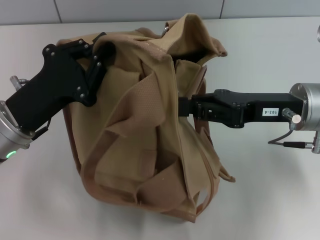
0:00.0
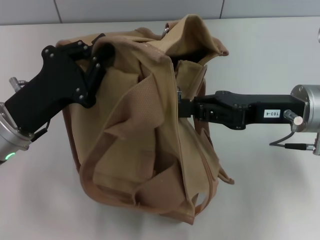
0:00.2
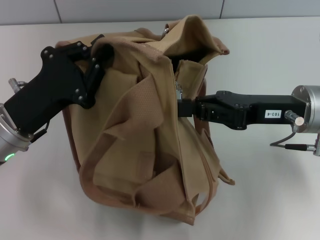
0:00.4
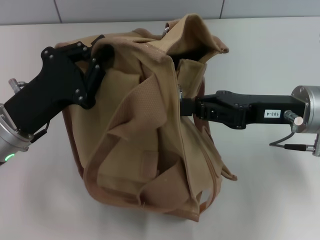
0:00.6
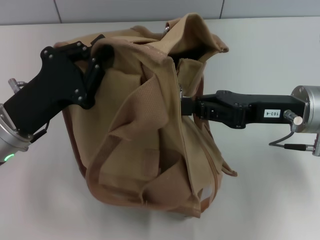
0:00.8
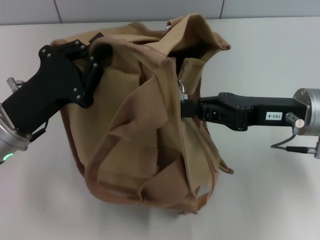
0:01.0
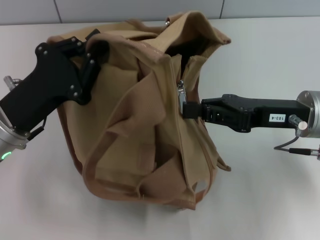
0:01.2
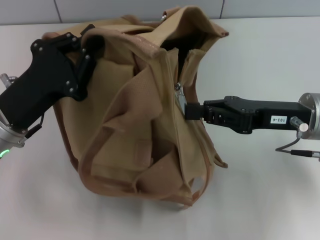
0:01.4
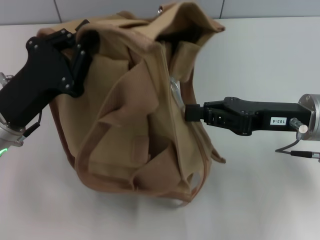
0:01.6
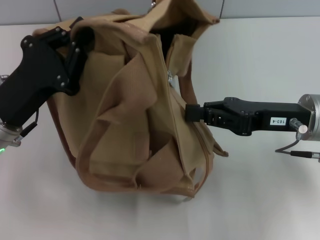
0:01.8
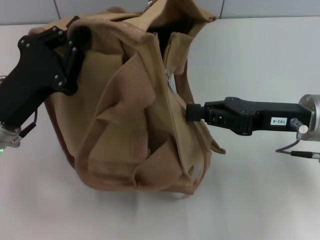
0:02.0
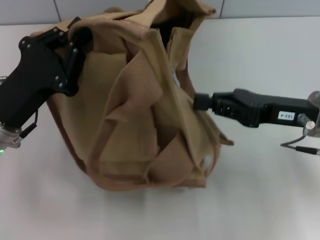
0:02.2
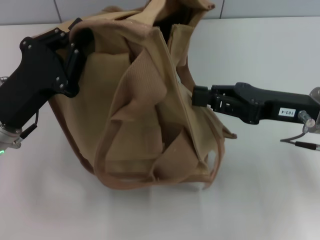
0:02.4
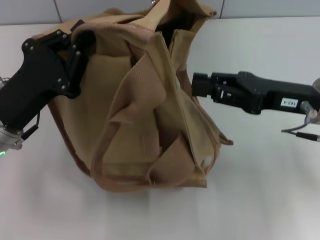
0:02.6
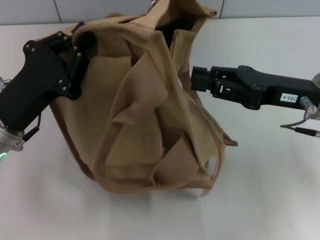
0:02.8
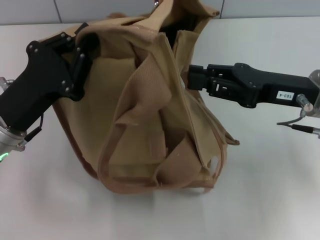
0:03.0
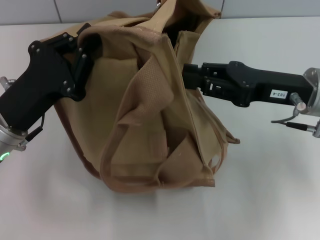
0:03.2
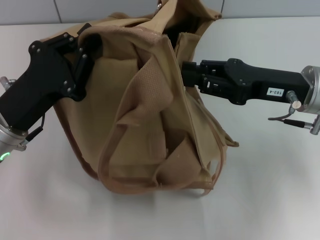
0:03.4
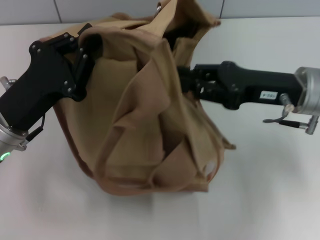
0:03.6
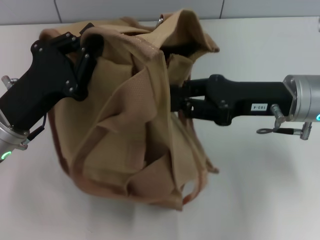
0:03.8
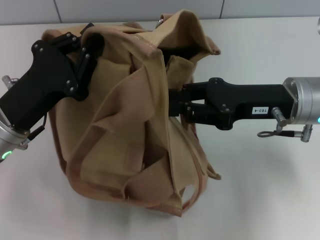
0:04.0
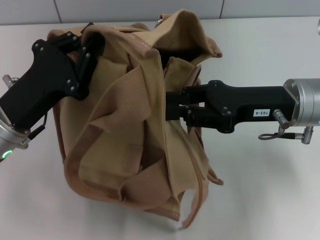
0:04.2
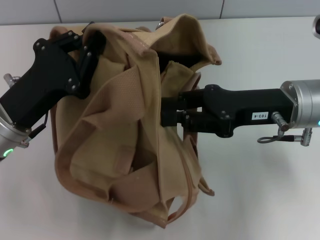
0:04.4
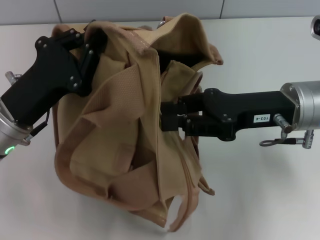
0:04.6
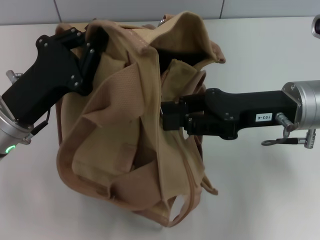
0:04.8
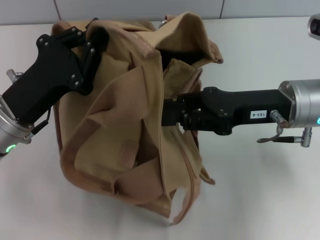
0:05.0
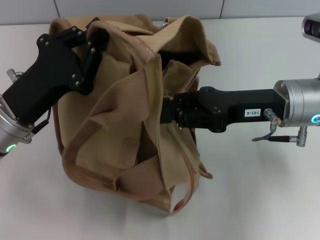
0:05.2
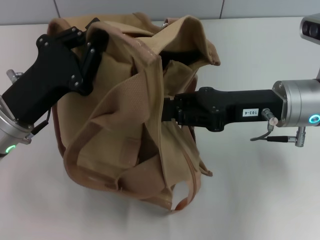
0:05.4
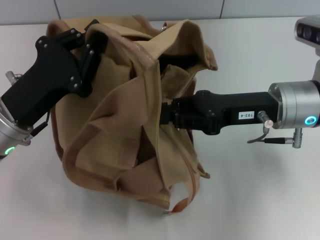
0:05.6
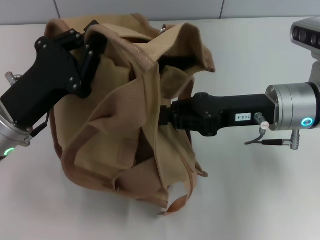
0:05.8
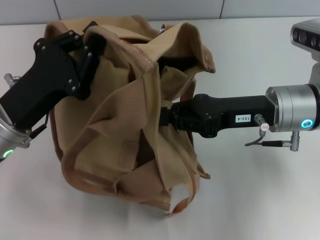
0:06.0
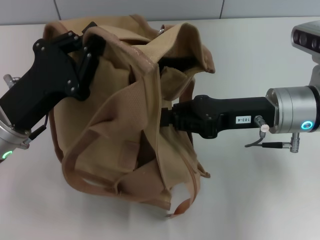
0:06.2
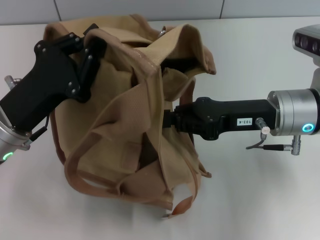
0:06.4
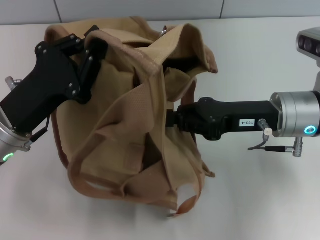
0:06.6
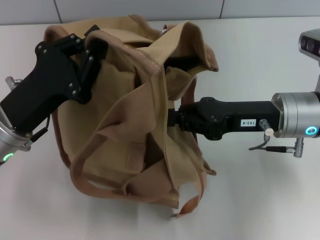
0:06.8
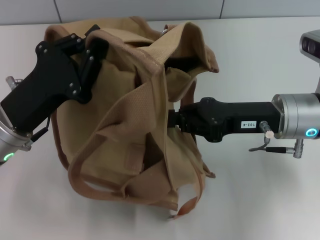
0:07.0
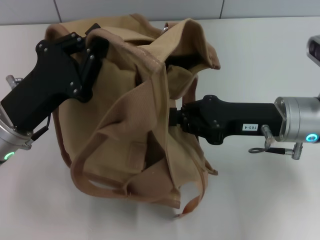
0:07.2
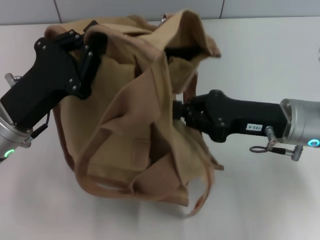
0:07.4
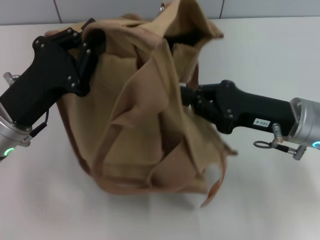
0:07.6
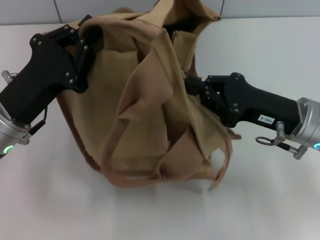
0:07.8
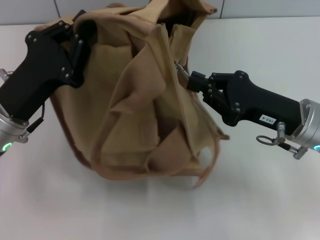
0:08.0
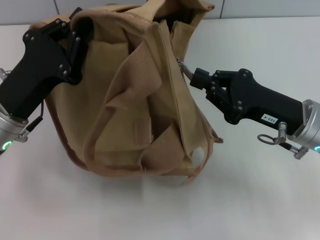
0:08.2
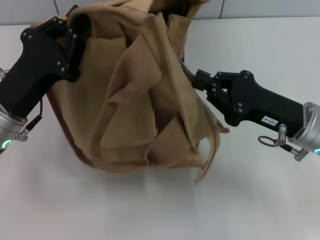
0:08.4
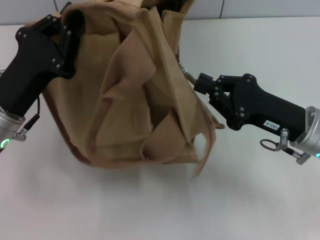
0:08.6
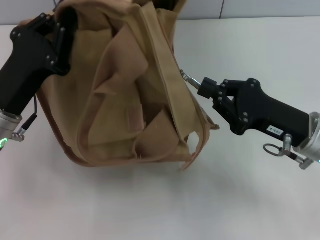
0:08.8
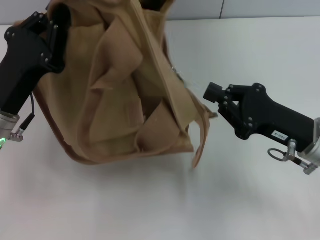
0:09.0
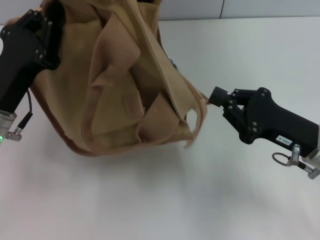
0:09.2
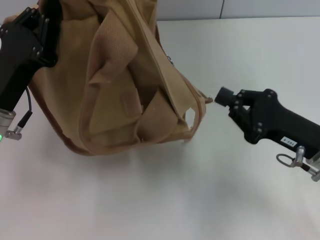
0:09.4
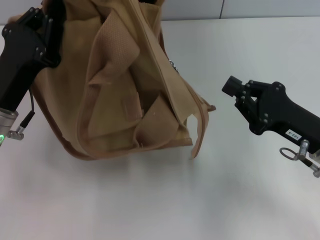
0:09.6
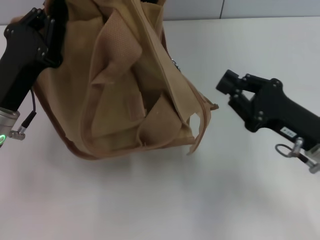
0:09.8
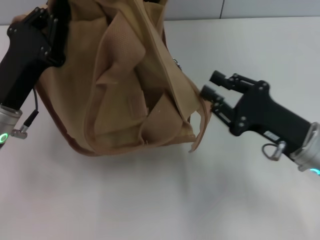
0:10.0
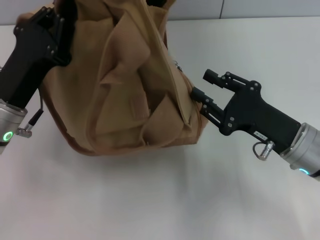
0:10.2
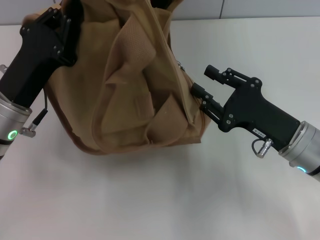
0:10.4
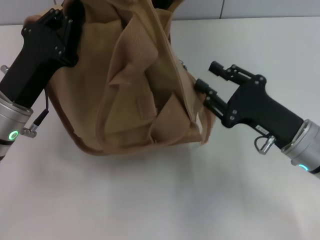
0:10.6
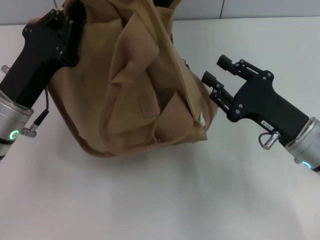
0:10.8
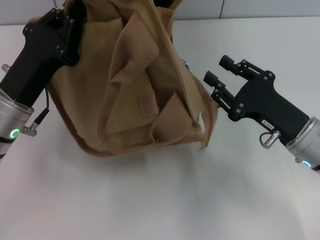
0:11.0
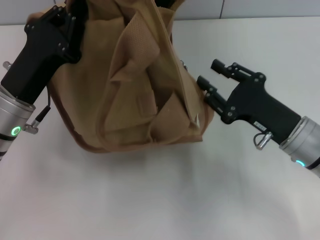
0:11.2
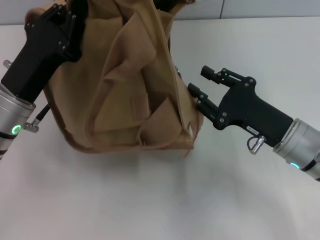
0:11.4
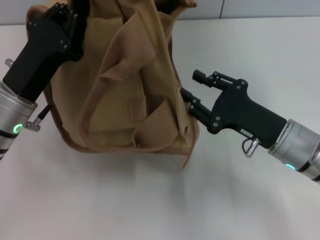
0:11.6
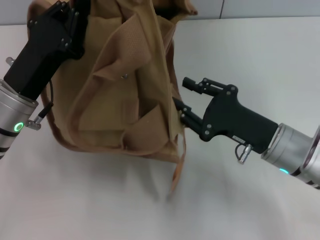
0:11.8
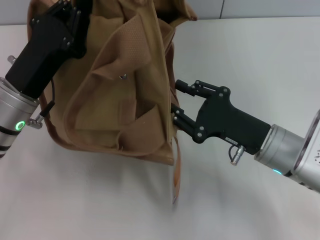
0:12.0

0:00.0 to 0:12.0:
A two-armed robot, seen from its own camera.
0:01.6 to 0:03.0: The right gripper opens its fingers.
0:04.4 to 0:06.0: There are only small adjustments of the grippers.
0:09.0 to 0:10.4: The right gripper opens up.

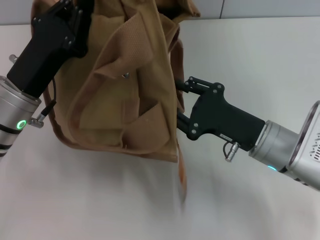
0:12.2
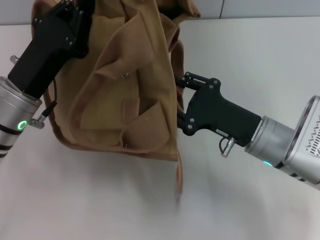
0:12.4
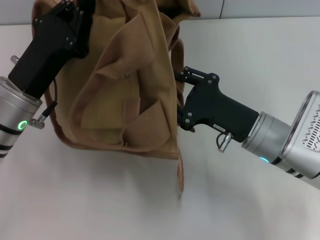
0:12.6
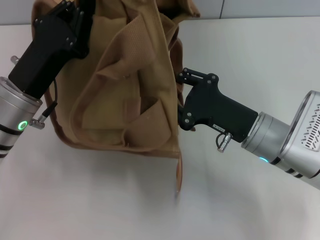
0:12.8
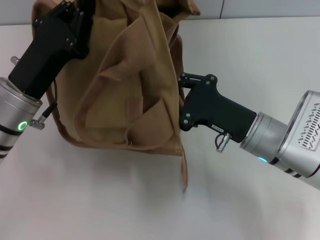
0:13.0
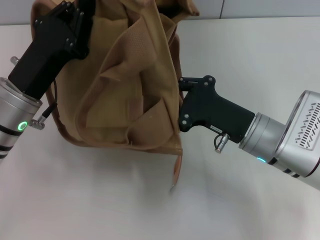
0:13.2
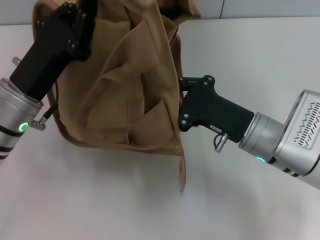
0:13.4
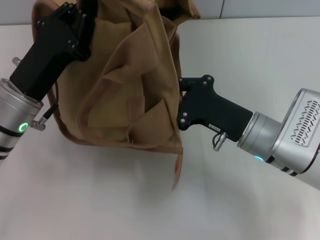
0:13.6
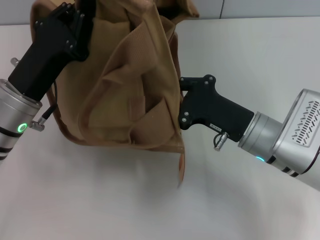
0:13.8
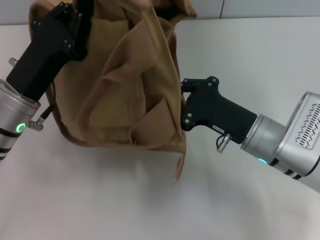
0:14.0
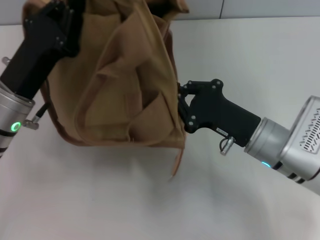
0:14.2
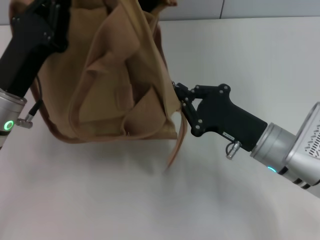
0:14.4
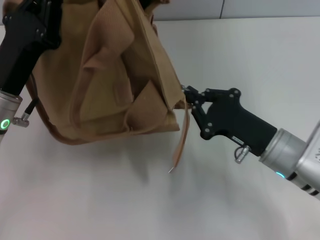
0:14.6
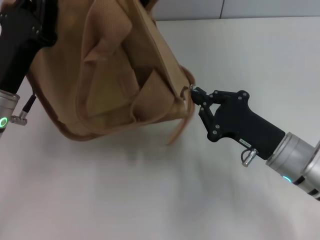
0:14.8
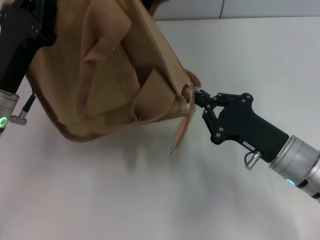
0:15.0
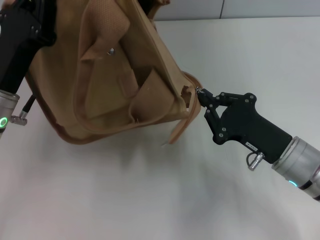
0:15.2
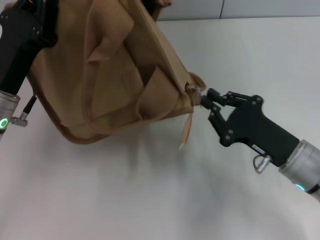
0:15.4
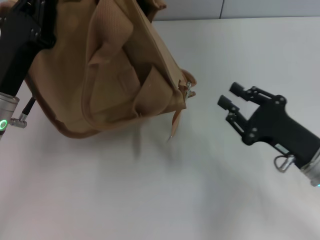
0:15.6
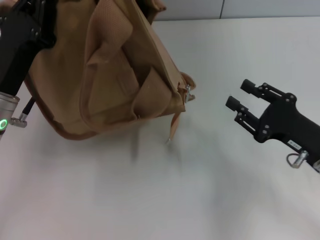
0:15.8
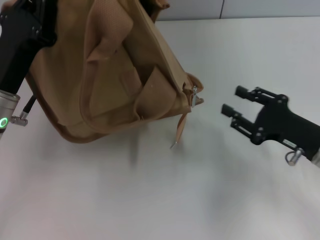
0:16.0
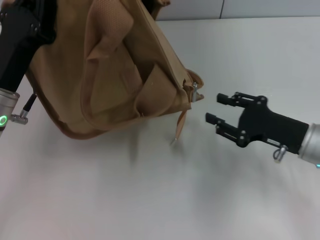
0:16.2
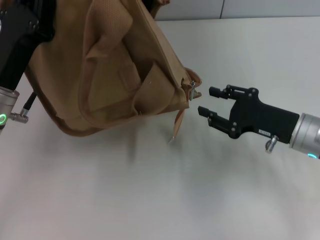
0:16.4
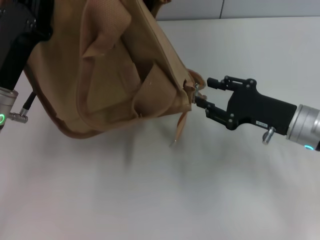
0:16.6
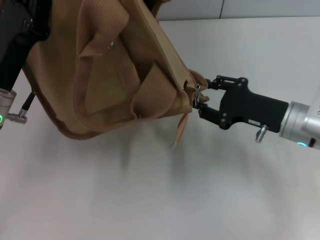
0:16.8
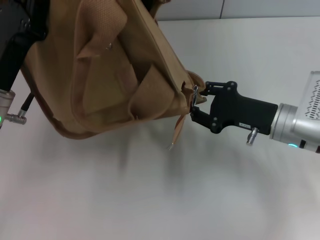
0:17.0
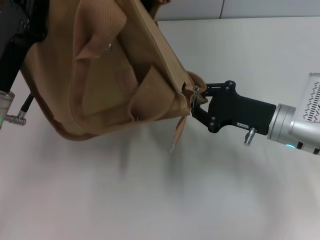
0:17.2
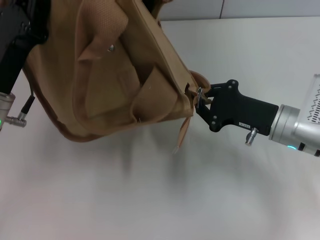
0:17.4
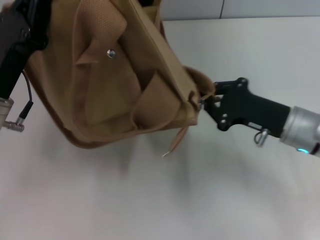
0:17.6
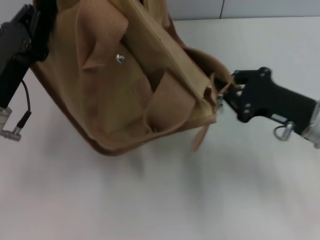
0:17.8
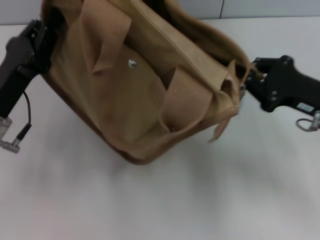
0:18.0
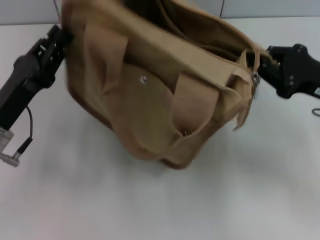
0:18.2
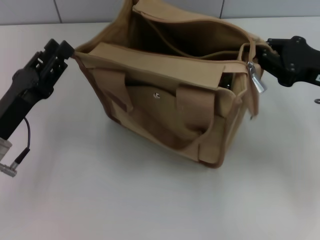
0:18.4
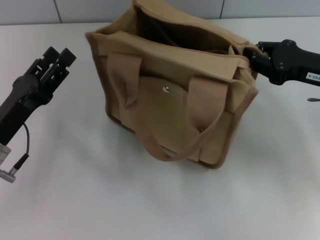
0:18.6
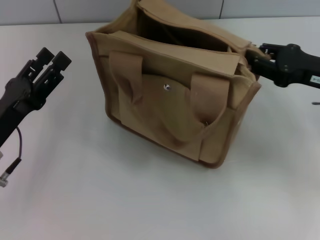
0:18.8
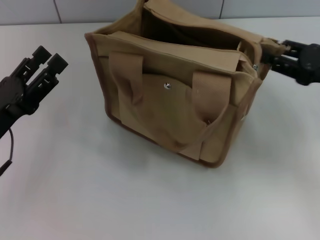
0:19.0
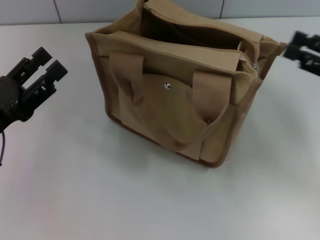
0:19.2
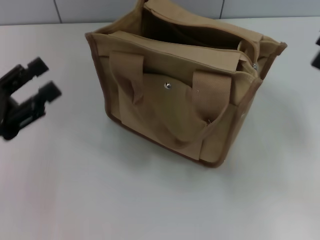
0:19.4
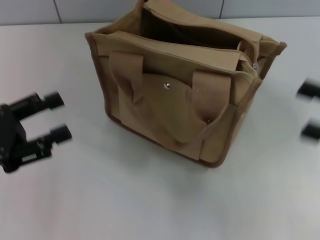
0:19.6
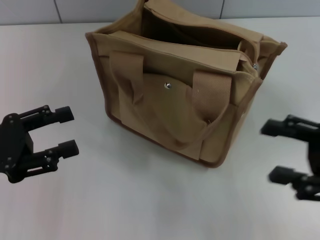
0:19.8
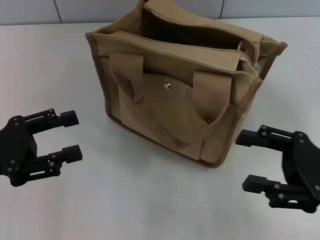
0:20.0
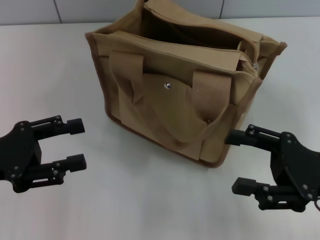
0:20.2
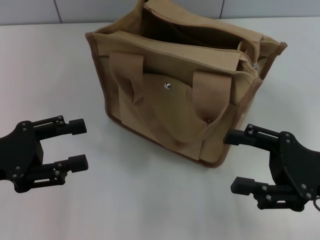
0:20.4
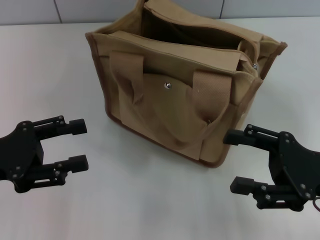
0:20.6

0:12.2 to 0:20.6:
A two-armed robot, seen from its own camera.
Step, 0:12.2 to 0:16.2: Pull open the zipper with your right hand.
Step, 0:16.4 to 0:18.4: Grab the bag with your left hand.
0:12.2 to 0:13.6: The right gripper closes up.
0:13.6 to 0:15.0: The right gripper moves roughly 5 cm.
0:15.0 to 0:16.4: The right gripper ends up some 5 cm from where it was, and opens its fingers.
0:16.4 to 0:17.8: The right gripper closes its fingers.
0:17.8 to 0:19.2: The right gripper goes about 10 cm to the right and upward, and opens its fingers. Meanwhile the left gripper changes place by approximately 5 cm, and opens up.
0:19.2 to 0:20.6: The right gripper travels to the left and backward by some 10 cm, and opens.

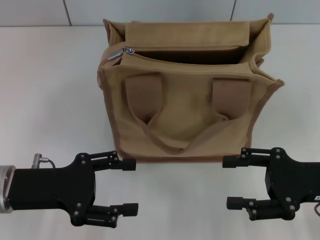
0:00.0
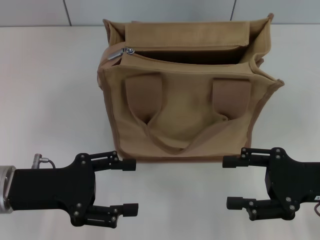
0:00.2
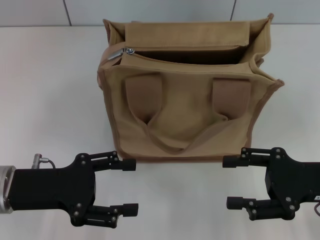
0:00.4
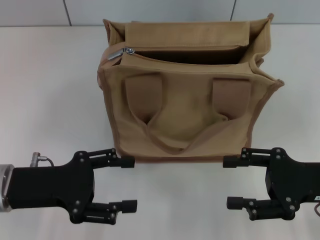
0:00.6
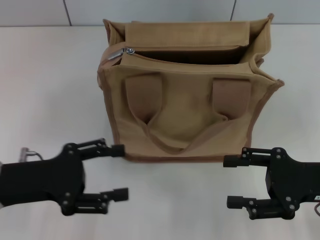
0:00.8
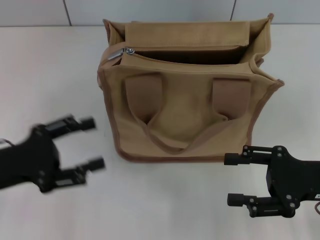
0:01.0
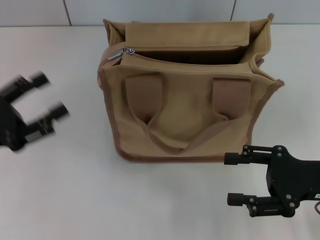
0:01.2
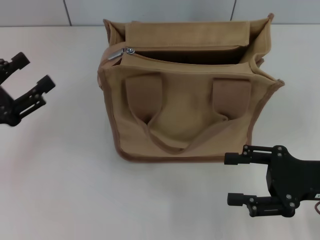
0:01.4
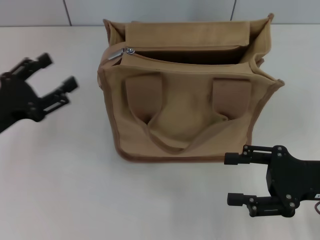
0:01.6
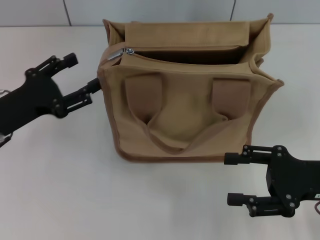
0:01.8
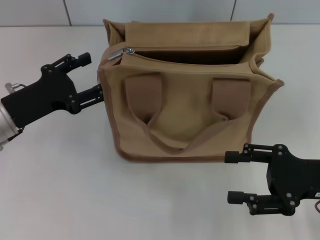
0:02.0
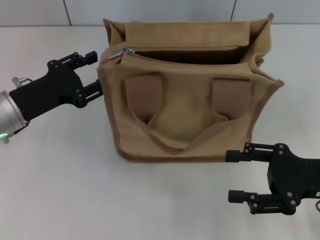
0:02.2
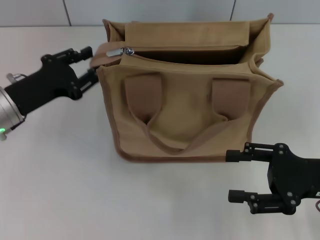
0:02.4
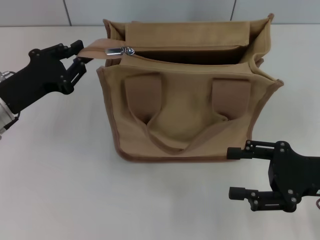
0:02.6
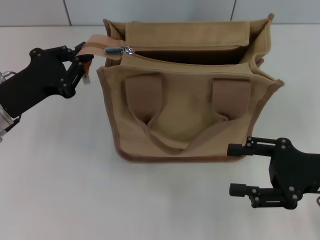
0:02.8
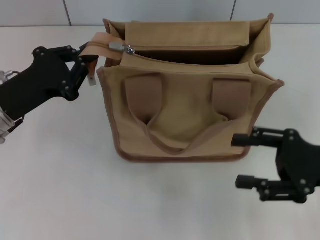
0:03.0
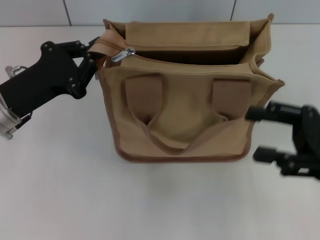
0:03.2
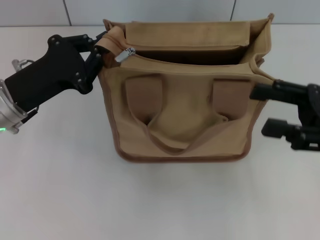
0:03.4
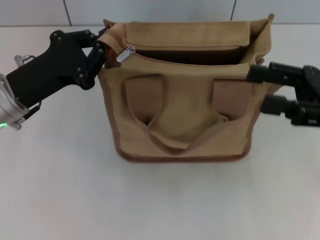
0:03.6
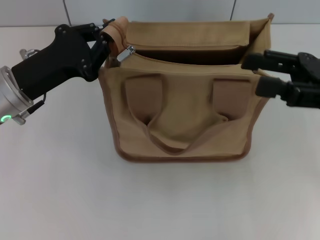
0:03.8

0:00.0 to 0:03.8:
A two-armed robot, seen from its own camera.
0:00.0 to 0:01.2: The left gripper moves to the left, about 5 cm.
0:01.2 to 0:02.6: The left gripper goes some 10 cm forward, and closes up.
0:02.6 to 0:03.8: The left gripper closes up, while the right gripper moves upward and forward, roughly 10 cm.
